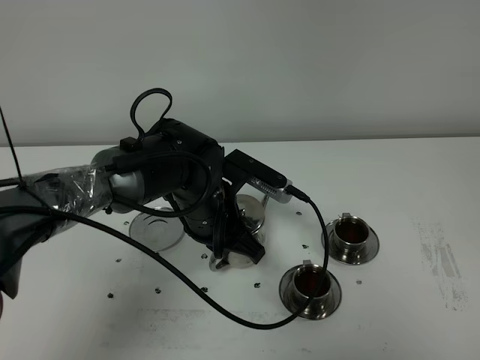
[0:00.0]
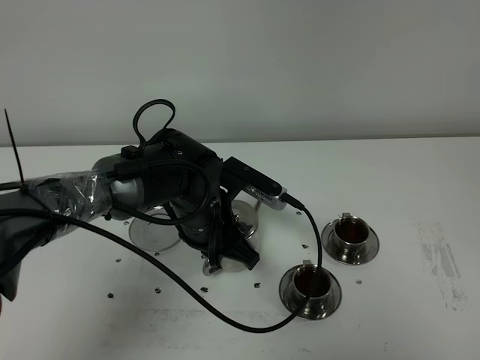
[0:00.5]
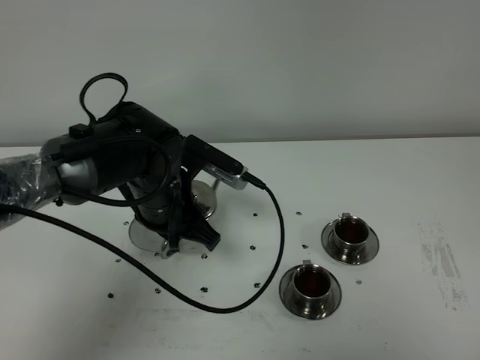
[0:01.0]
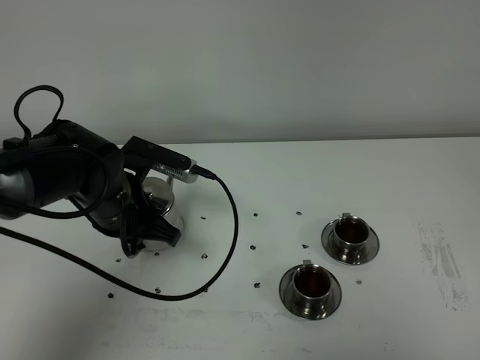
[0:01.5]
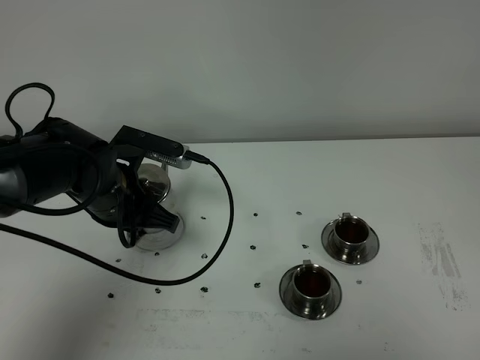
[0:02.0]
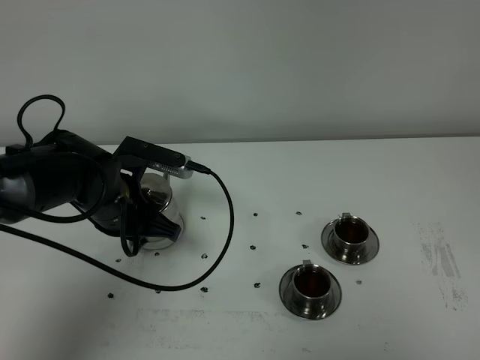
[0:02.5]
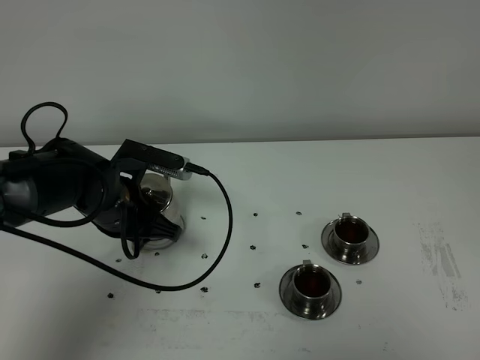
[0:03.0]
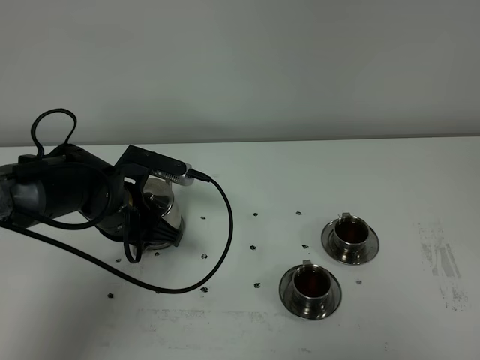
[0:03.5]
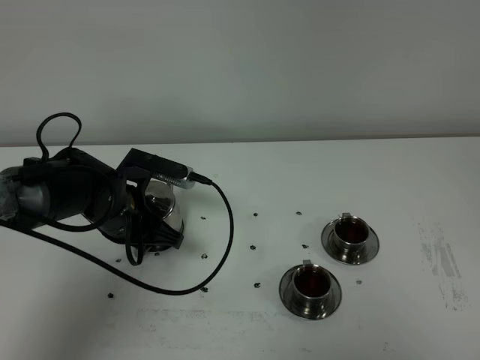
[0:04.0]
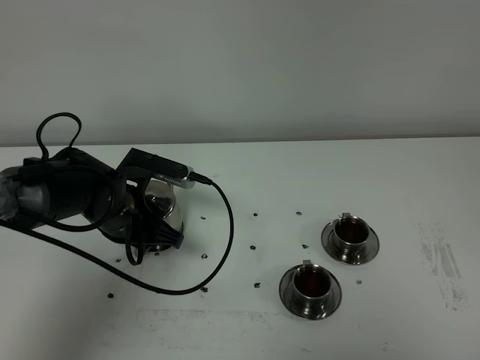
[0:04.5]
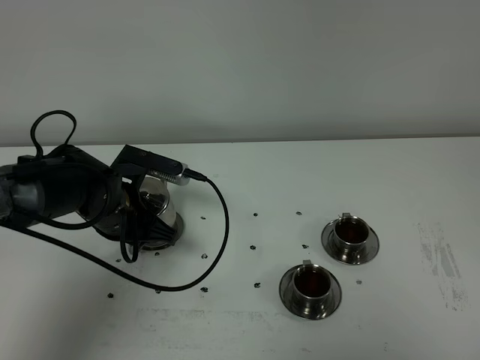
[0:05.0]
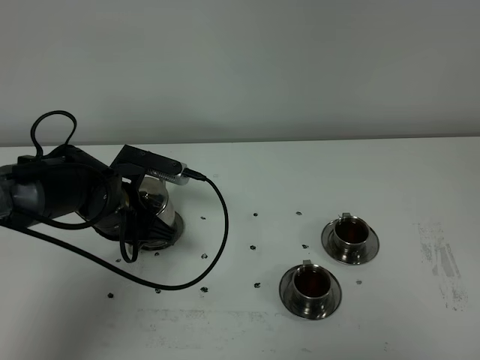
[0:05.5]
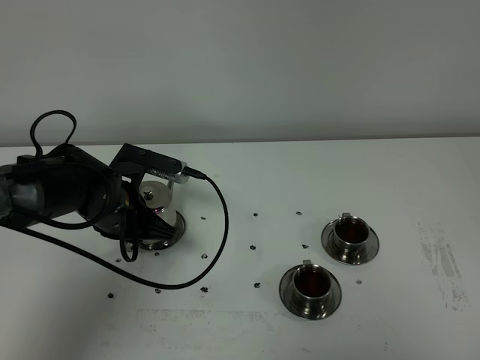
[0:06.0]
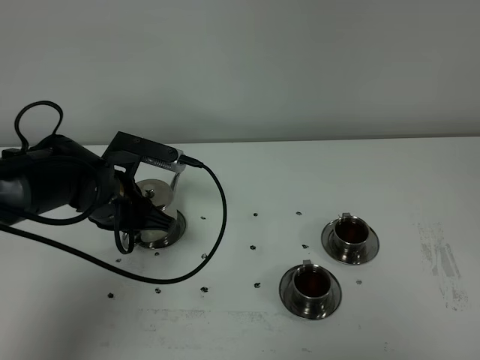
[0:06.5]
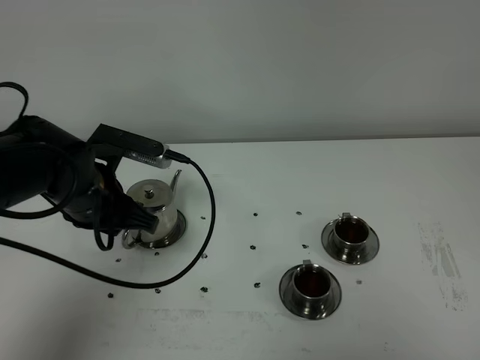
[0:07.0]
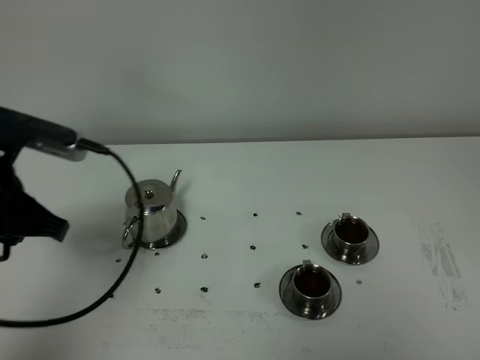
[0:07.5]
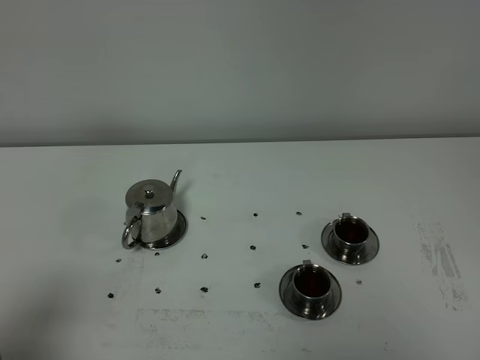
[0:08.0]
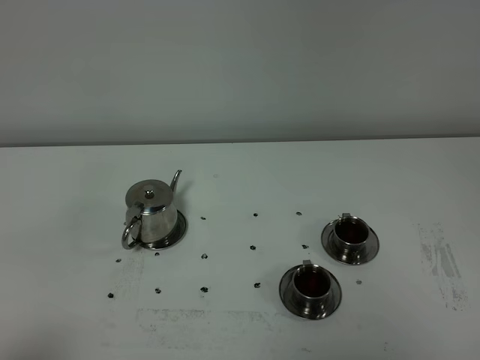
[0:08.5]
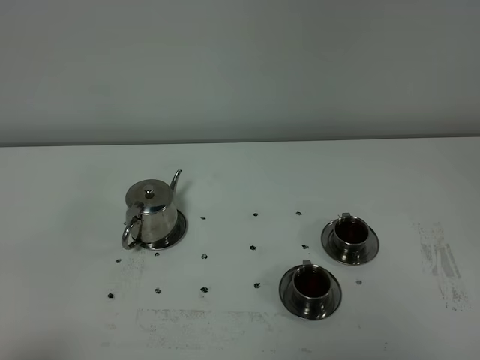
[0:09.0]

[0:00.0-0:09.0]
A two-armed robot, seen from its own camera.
Task of the whole recording: grasp the stainless steel teapot and pour the tea into the two stainless steel teacups one by one, put the stainless steel teapot back in its original place.
0:00.0 to 0:02.0: The left gripper is displaced to the left by approximately 10 cm.
0:02.0 to 0:04.5: The grippers make only small movements.
0:04.5 to 0:07.0: The left gripper is displaced upward by some 5 cm, and opens its fingers.
0:07.0 to 0:09.0: The left gripper is displaced backward by some 35 cm.

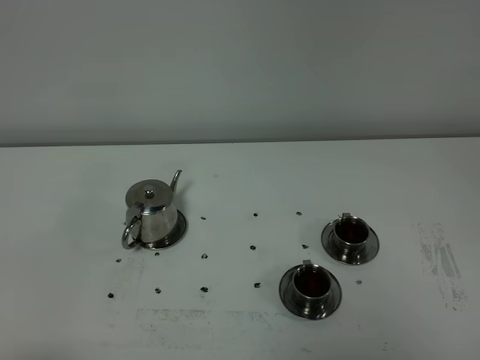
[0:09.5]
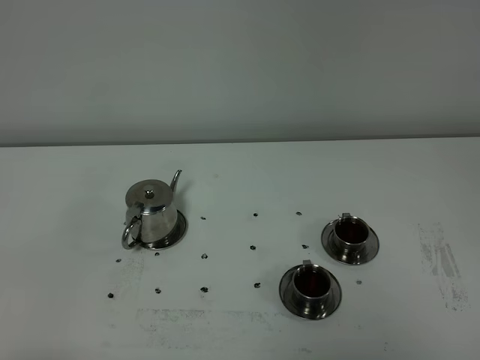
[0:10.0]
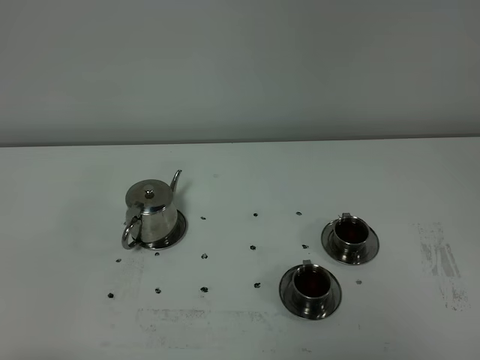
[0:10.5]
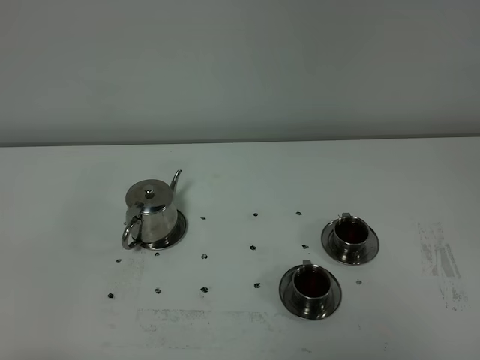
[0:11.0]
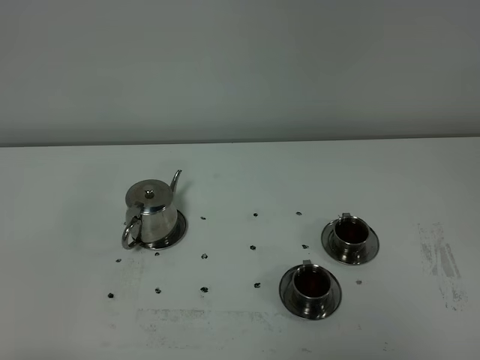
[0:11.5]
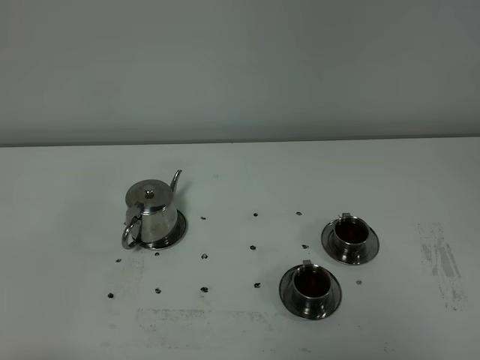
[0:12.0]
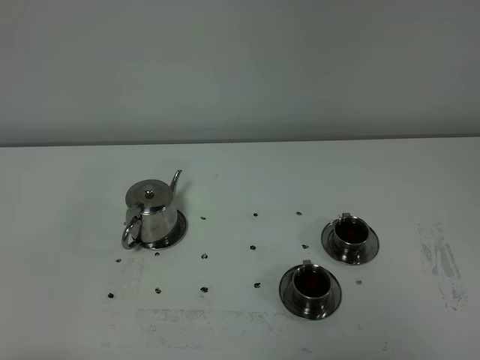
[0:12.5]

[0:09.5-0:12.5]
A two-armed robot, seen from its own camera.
Task of the whole recording: grasp the stainless steel teapot and pour the tea into the two stainless steel teacups one by one, put the stainless steel teapot back in its original place.
0:09.5 to 0:12.5: Neither gripper changes place.

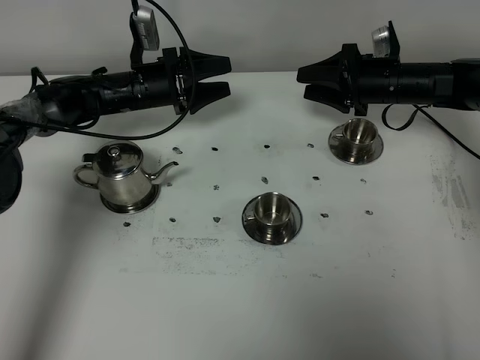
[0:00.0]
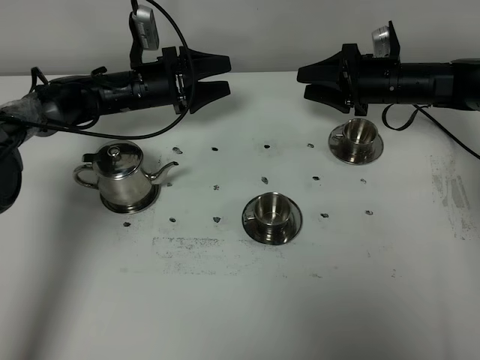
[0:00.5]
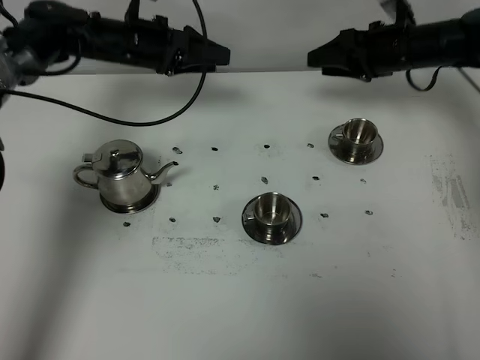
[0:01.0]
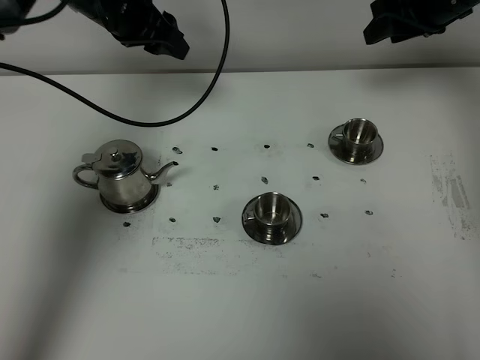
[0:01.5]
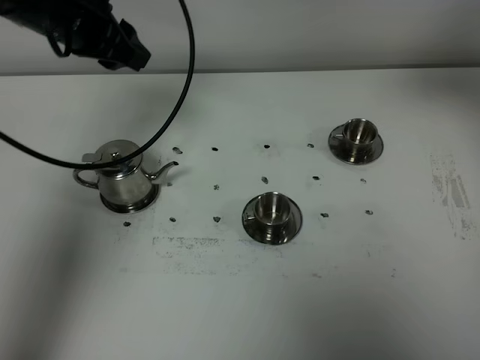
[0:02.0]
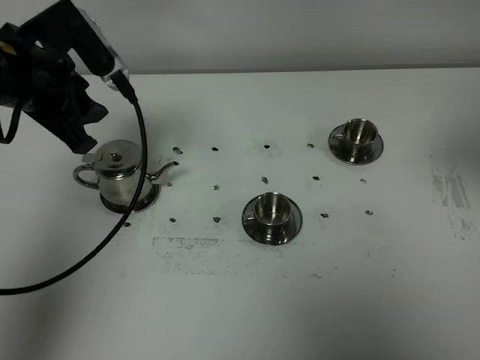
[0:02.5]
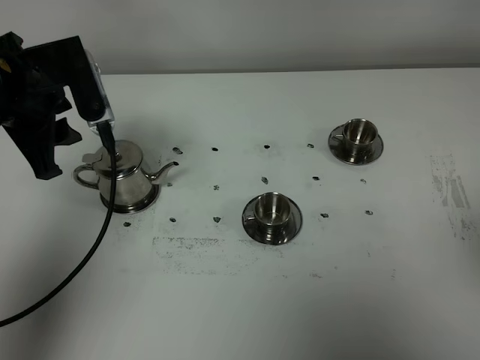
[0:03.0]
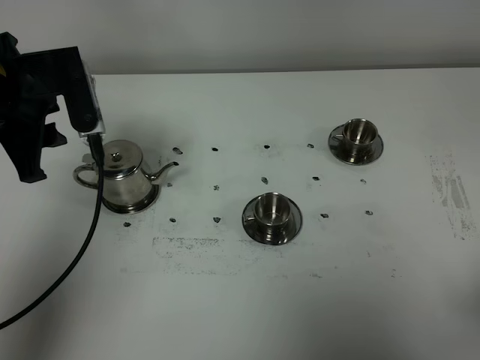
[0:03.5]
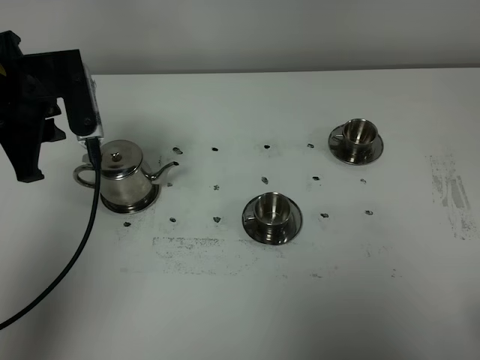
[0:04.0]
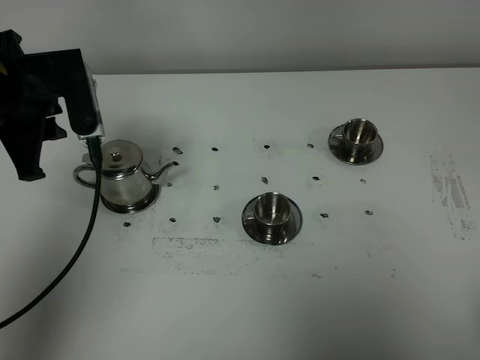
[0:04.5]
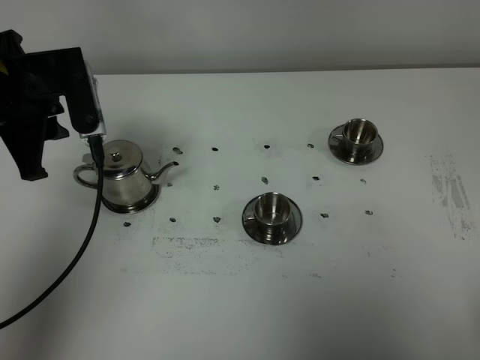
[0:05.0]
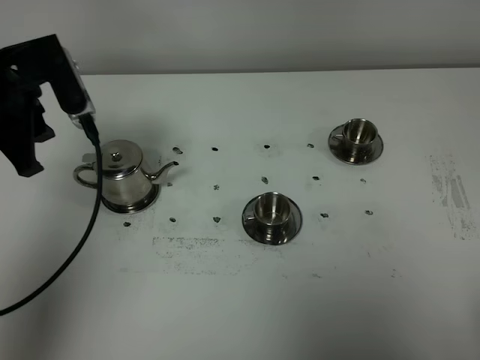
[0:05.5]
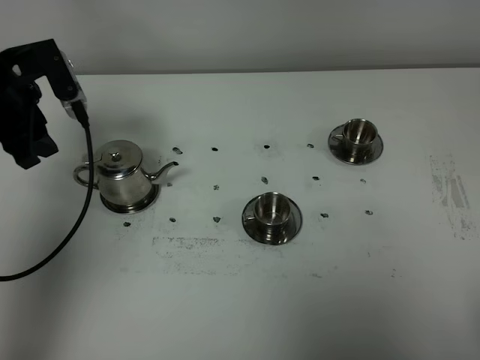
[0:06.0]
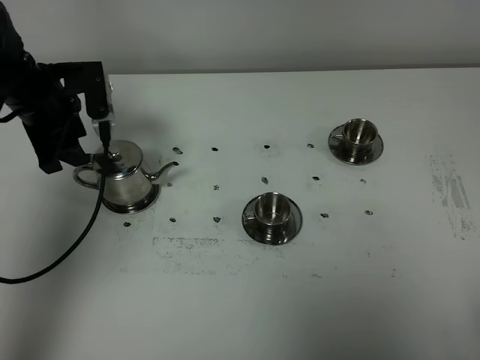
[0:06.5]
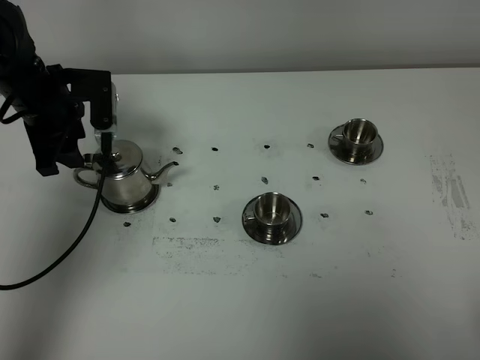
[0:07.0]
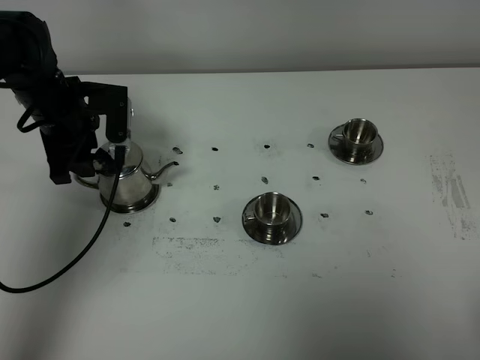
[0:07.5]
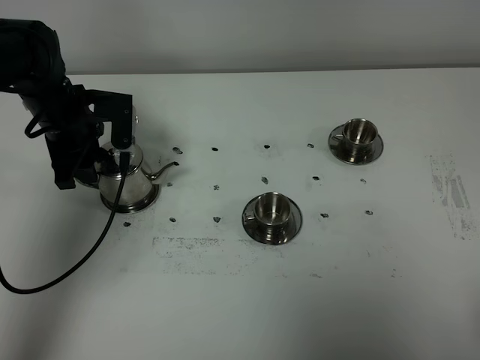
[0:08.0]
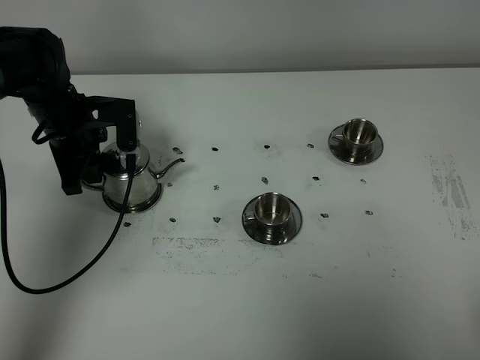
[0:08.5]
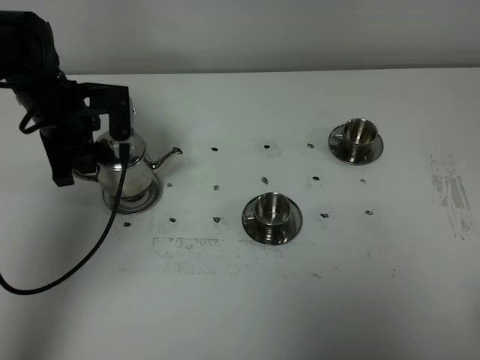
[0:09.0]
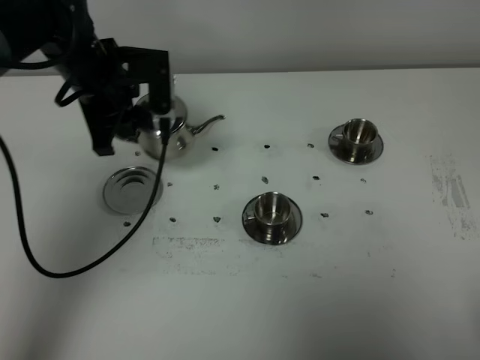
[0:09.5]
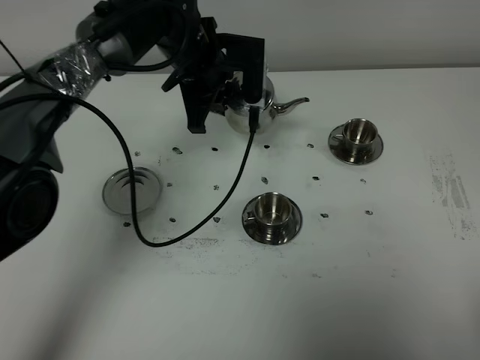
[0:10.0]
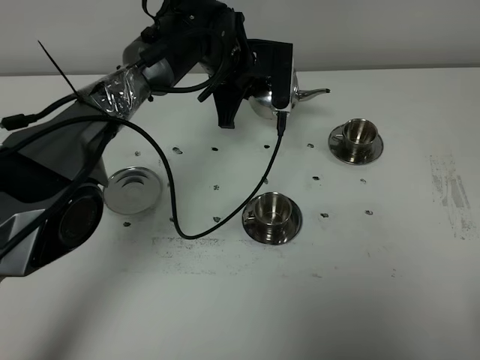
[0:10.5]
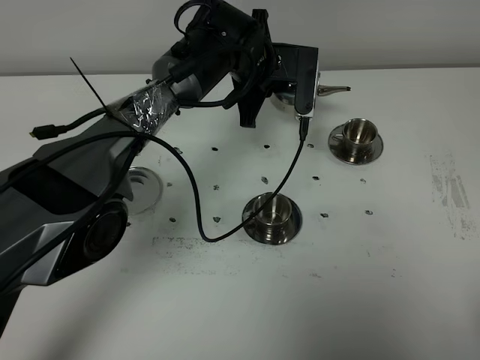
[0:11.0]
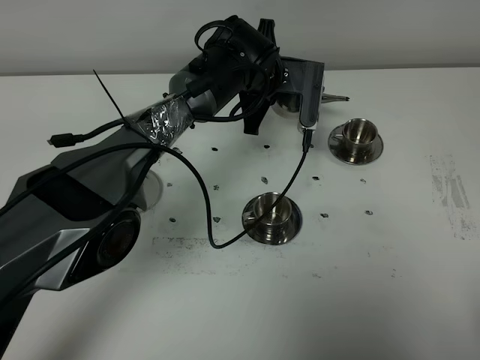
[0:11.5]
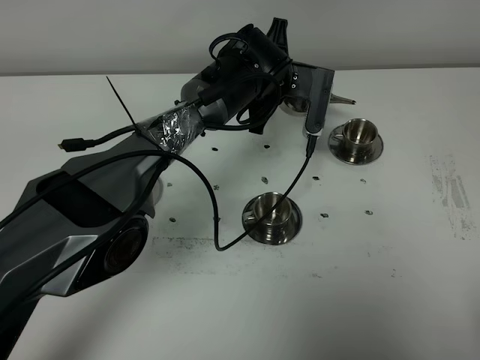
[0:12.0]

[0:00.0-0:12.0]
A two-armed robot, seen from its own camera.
Task of the whole recording: grasp the stainless steel teapot and pour the tea into the two stainless steel teacups one by one, put the stainless steel teapot back in its original place.
Step, 0:00.0 to 0:08.5: Pick up the teapot with the left gripper.
0:00.0 to 0:02.0: Both grippers travel together upward and backward, about 30 cm. The left gripper closes up.
0:02.0 to 0:04.0: The left gripper shifts about 10 cm backward. Meanwhile the right gripper travels backward and downward by about 35 cm, and closes up.
0:04.0 to 0:06.0: The left gripper heads forward, covering some 5 cm, and opens its fingers.
0:06.0 to 0:08.0: The left gripper shifts about 10 cm downward and to the right.
0:08.0 to 0:10.0: The left gripper heads to the right, covering about 20 cm, and closes.
0:10.0 to 0:12.0: The left gripper travels to the right by roughly 10 cm.

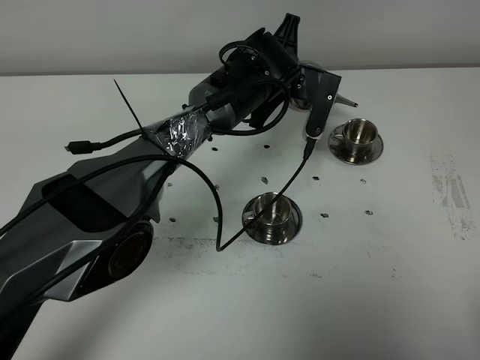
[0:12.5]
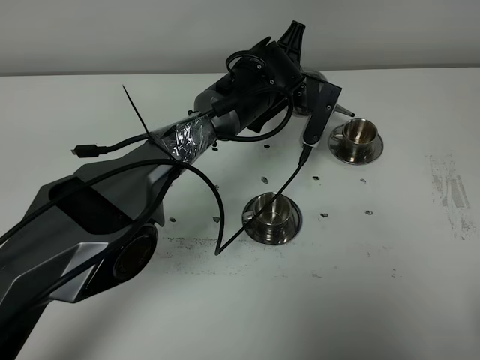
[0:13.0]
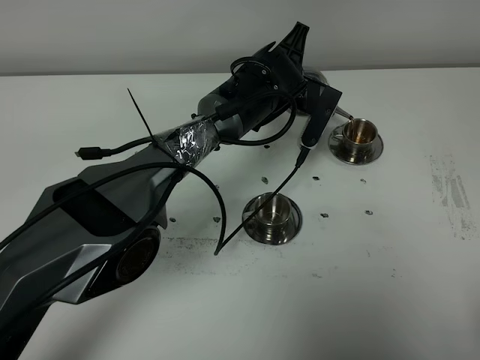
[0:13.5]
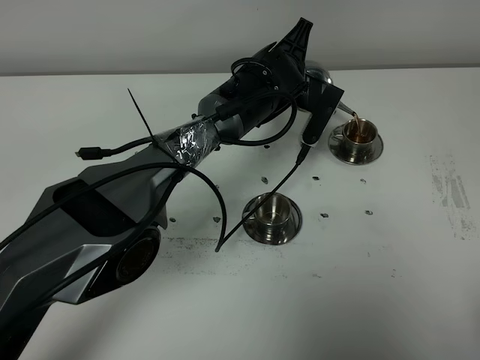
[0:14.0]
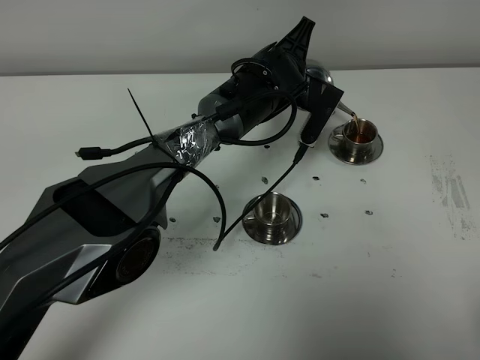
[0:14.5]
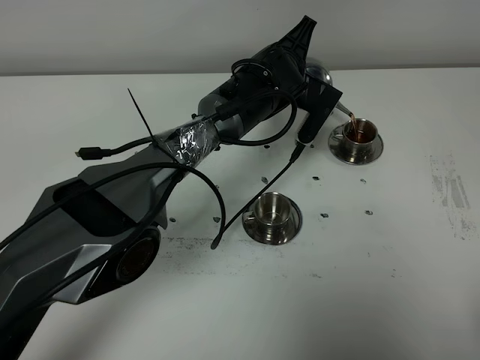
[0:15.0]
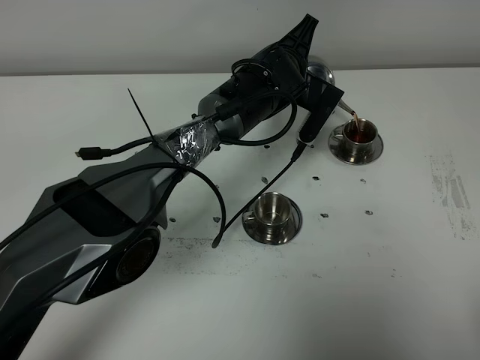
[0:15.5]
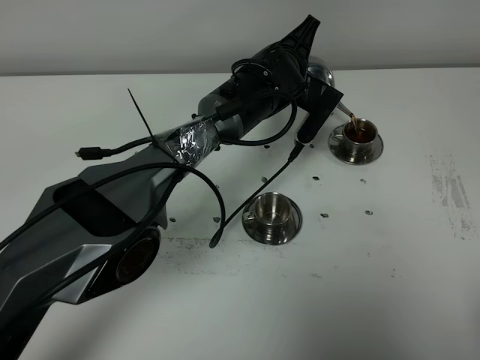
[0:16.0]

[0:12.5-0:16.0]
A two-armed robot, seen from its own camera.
Task of the whole recording: grasp the stainless steel teapot and pour the tea into the two stainless steel teacups one by one, put the stainless steel teapot back in its original place.
0:12.5 to 0:14.5: The grippers move only a little.
0:14.5 to 0:16.0: The two grippers keep their place.
